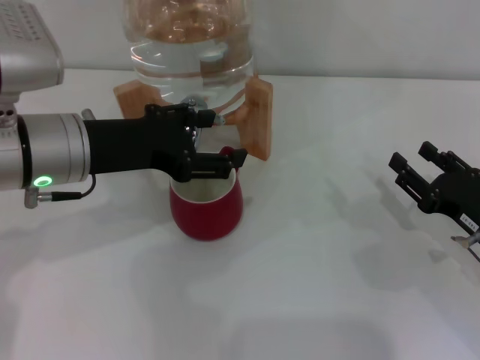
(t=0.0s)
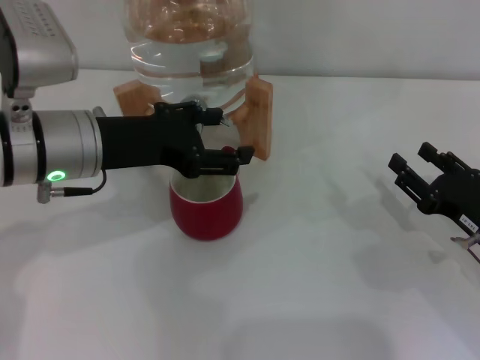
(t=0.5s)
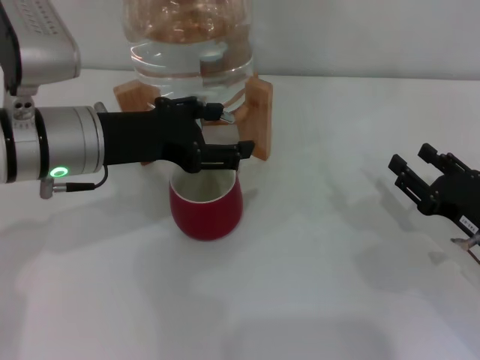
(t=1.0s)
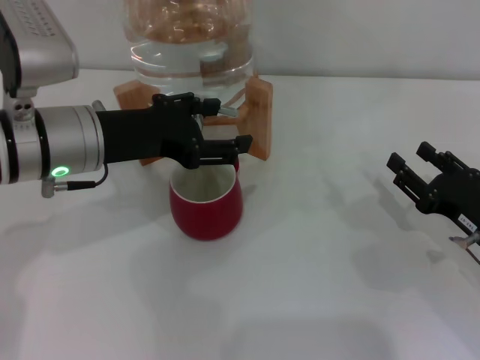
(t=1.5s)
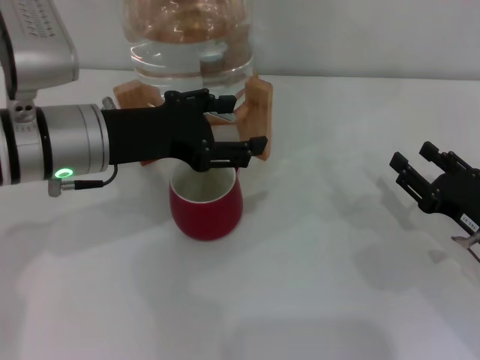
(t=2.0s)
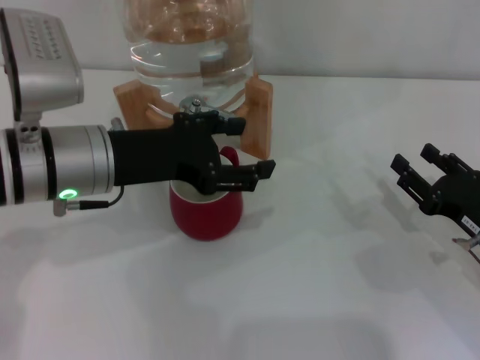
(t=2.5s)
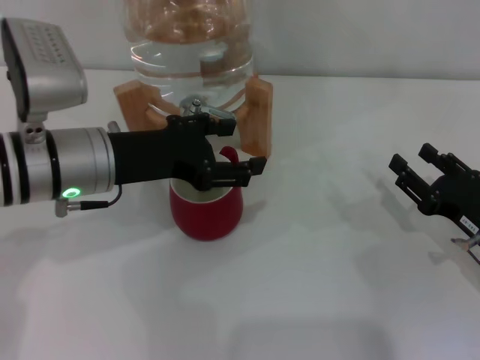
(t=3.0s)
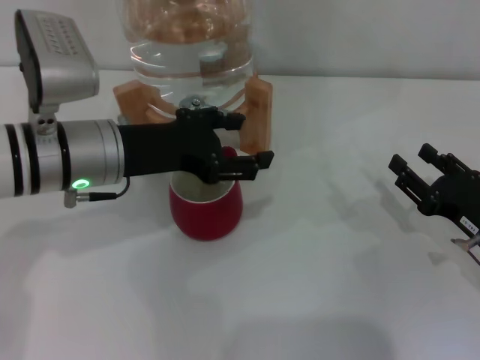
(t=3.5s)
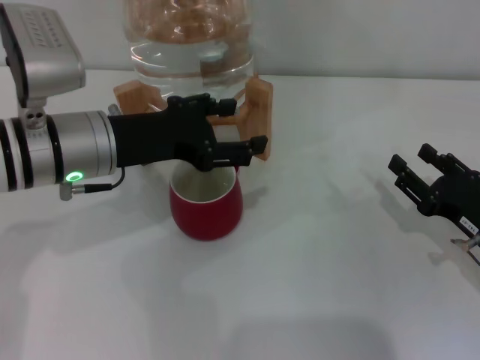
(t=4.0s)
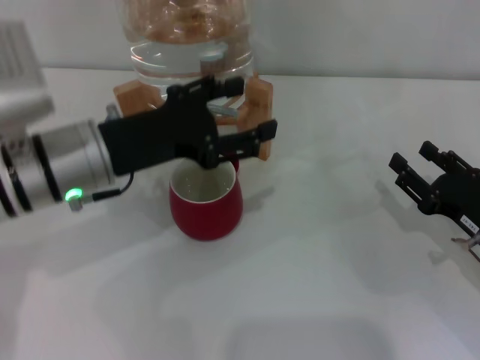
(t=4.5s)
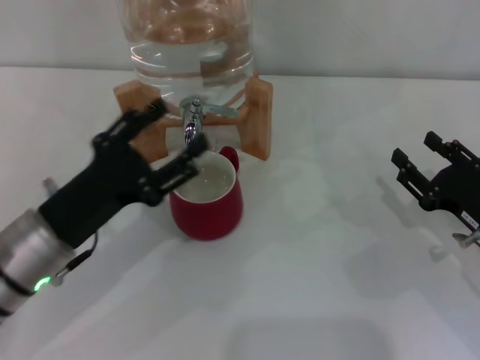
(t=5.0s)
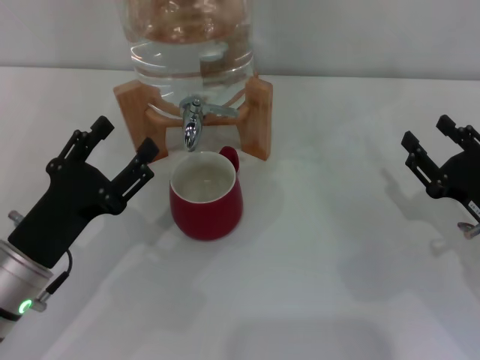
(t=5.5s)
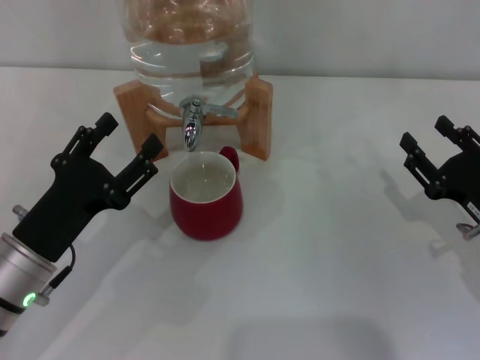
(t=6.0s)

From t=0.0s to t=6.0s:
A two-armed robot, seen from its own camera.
Task of the whole recording: the right gripper pick up the red cup and place it horizontally under the faucet, the left gripper turn on the faucet to fill the cup, and then turn off the faucet.
Step, from t=0.0s to t=4.0s: Close the dispenser valve with the left gripper.
From t=0.0s to t=4.0s: There are only small adjustments of the grippers.
From t=4.0s to t=6.0s: The left gripper heads downward, backward and to the left, covering roughly 15 cm.
